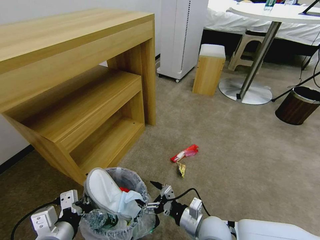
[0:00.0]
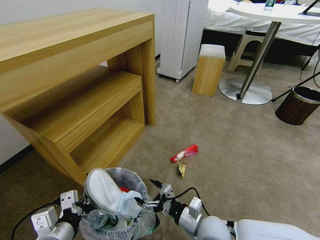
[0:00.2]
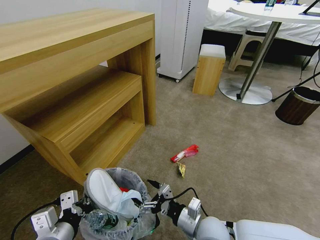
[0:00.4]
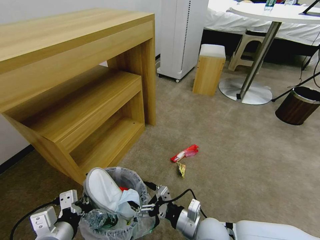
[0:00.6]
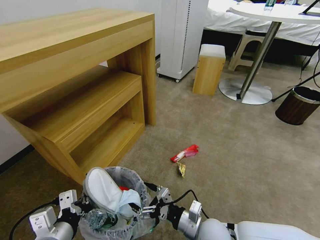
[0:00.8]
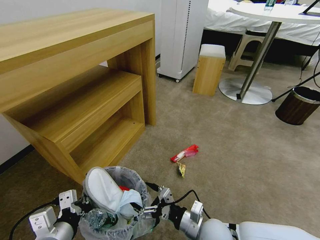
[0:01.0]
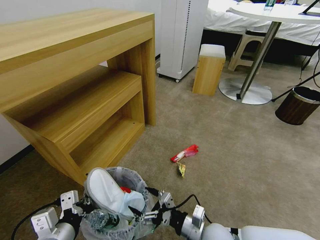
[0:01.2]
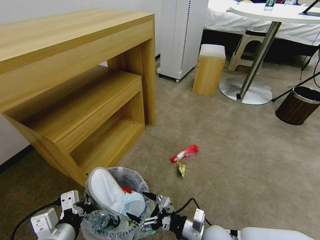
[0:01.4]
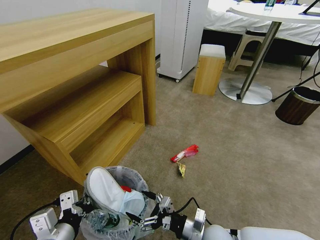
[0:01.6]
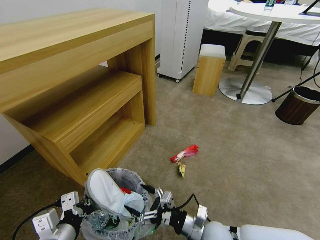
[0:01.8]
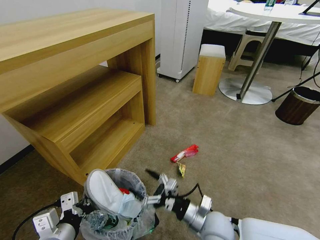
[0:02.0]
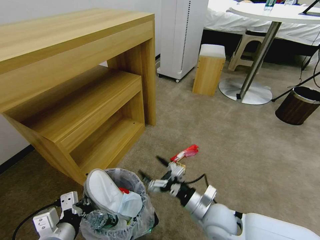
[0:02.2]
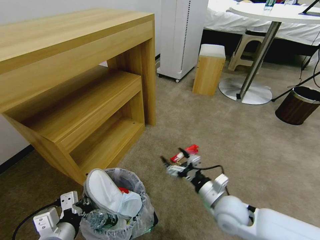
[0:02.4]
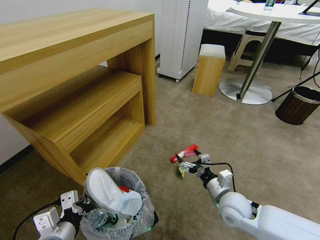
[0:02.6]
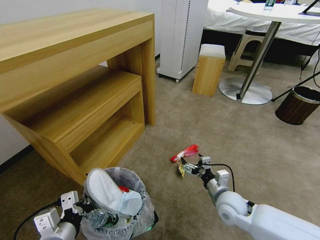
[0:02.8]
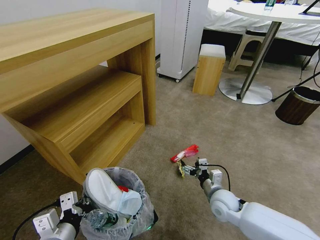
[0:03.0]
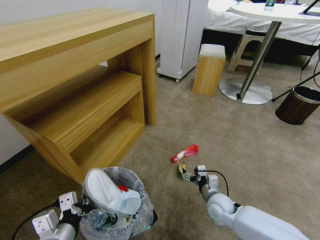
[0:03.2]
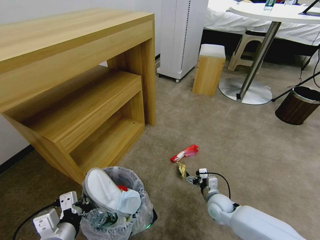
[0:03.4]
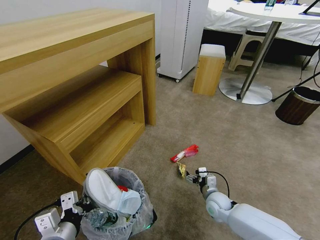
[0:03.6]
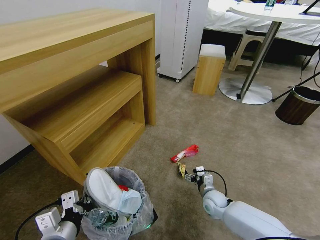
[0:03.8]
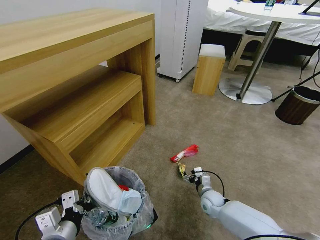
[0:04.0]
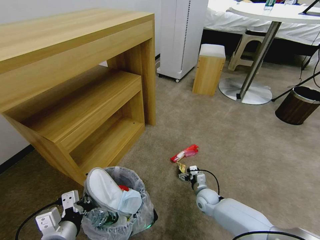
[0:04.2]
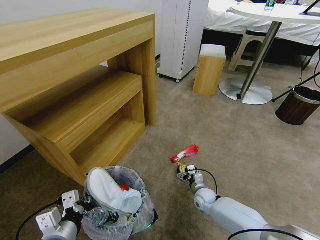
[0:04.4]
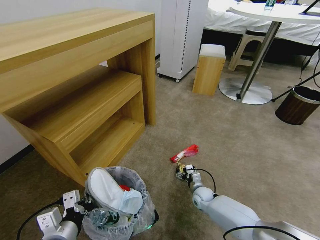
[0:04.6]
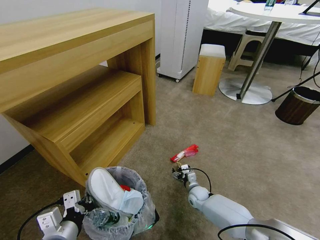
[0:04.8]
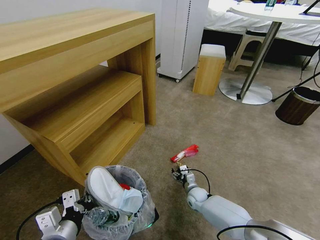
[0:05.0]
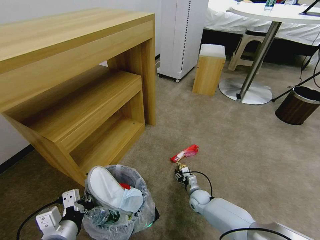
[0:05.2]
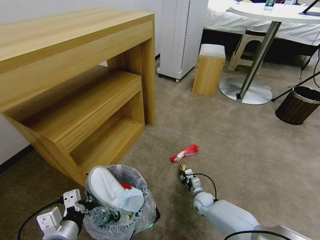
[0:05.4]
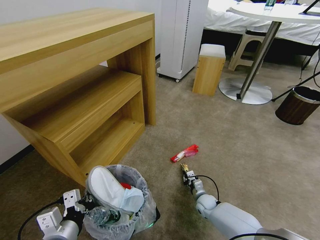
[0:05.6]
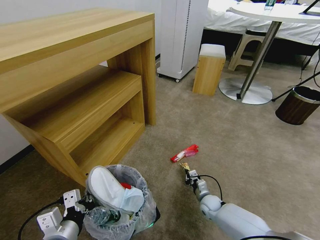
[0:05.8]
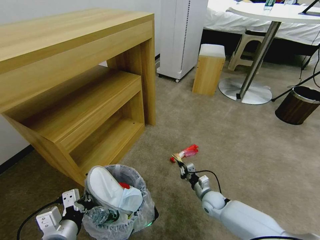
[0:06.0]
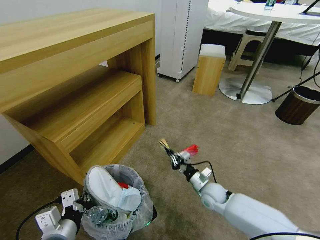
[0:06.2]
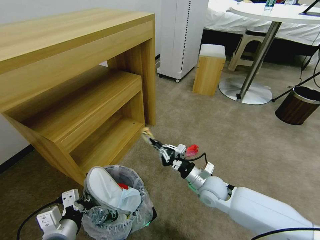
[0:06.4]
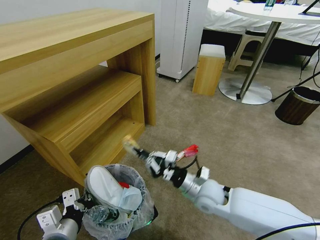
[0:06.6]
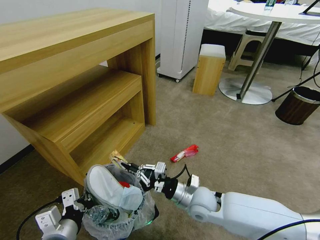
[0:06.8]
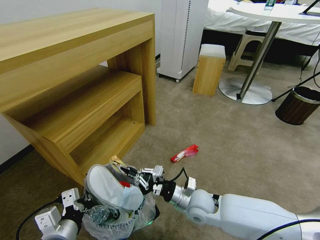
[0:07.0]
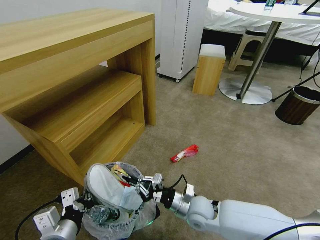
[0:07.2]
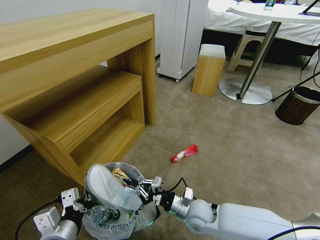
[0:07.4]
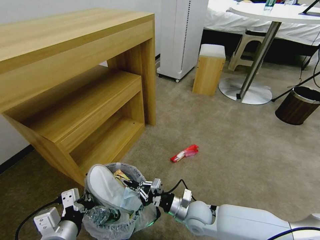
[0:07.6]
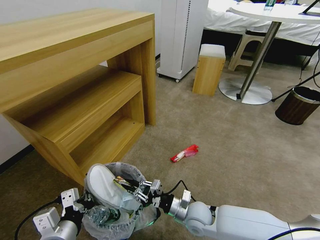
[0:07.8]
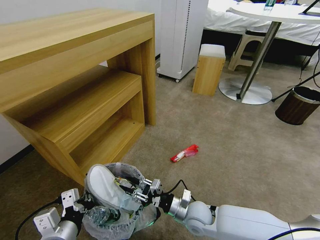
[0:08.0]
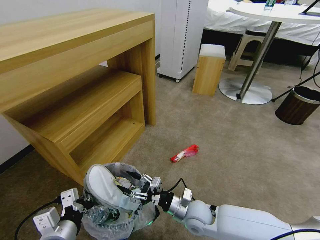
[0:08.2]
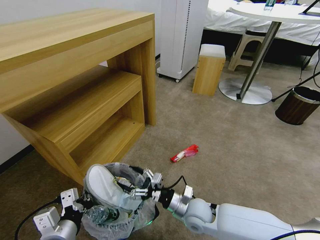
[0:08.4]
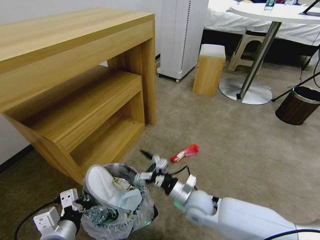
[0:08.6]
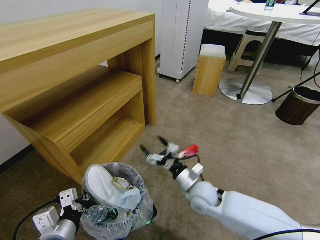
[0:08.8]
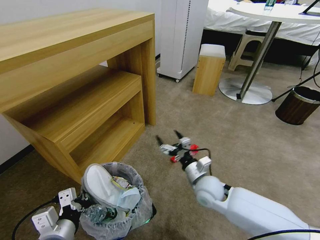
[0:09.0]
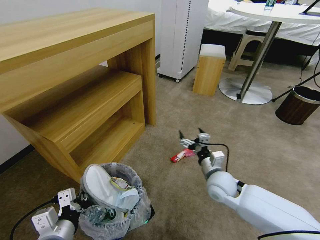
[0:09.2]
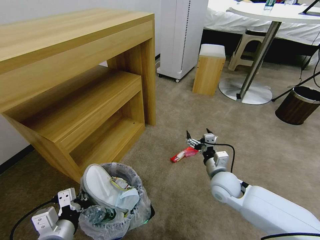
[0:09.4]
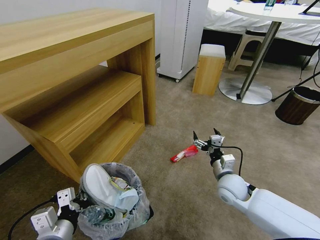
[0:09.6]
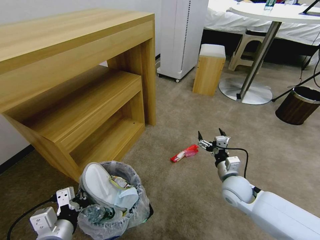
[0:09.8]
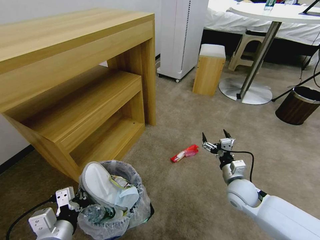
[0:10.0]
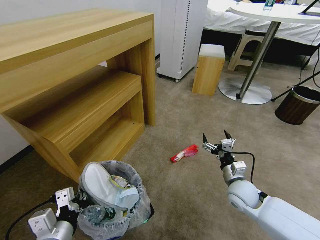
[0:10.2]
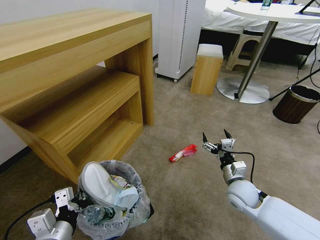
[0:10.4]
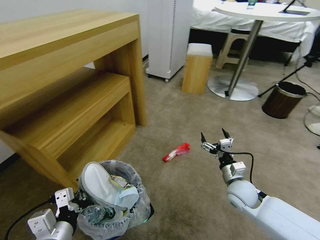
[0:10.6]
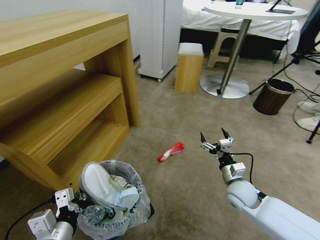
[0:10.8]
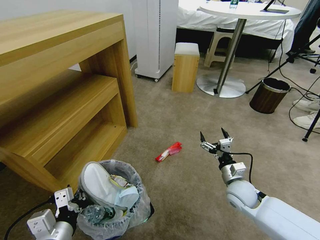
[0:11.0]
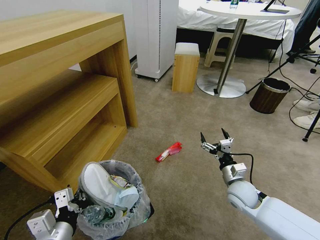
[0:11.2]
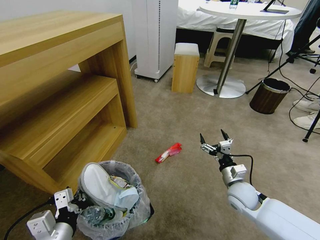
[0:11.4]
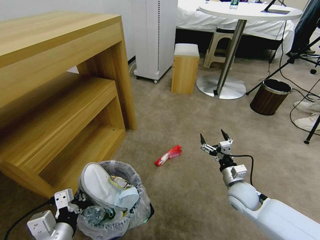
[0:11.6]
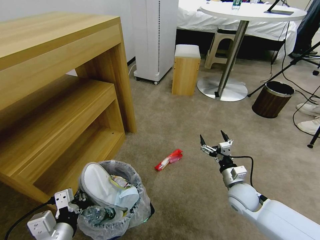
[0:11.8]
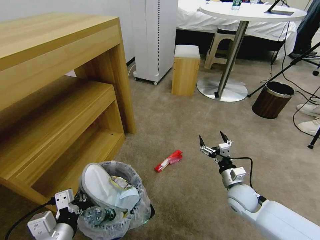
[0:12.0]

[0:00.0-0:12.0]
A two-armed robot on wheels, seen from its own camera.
Task of the whole recording: Pick up the trash bin and place the garbage on the floor into it.
0:00.0 to 0:01.6: The grippers stay close to where they were, moving slightly.
0:01.6 to 0:03.0: The right gripper goes about 15 cm forward and to the right.
0:03.0 to 0:04.4: The right gripper is displaced downward and forward by roughly 15 cm.
0:04.4 to 0:06.0: The right gripper closes.
0:06.0 to 0:07.6: The right gripper travels to the left, upward and backward by approximately 15 cm.
0:07.6 to 0:09.0: The right gripper heads upward and forward, covering approximately 10 cm, and opens its fingers.
0:09.0 to 0:10.4: The right gripper is displaced to the right by about 10 cm.

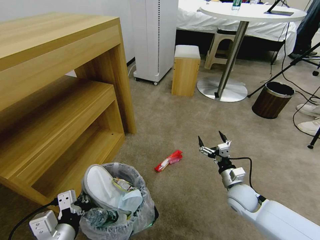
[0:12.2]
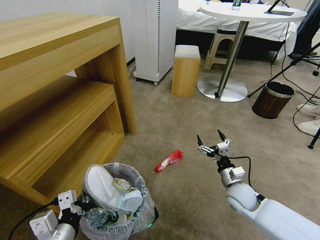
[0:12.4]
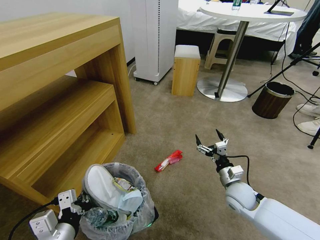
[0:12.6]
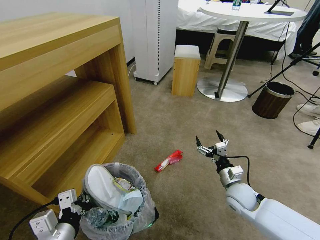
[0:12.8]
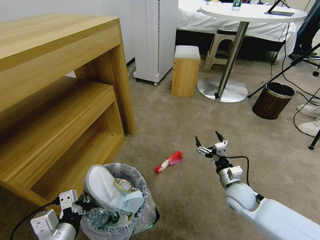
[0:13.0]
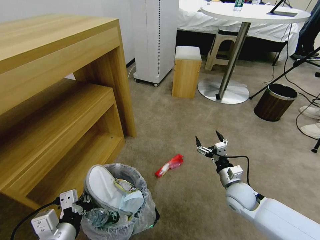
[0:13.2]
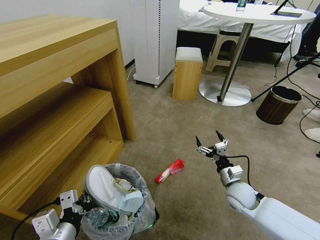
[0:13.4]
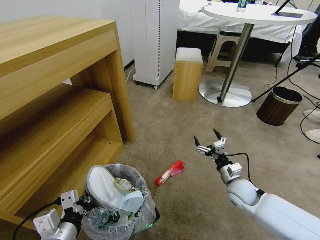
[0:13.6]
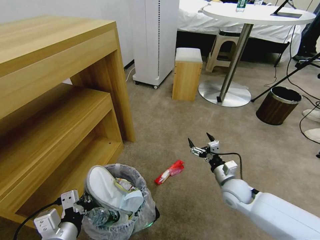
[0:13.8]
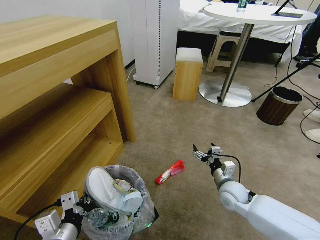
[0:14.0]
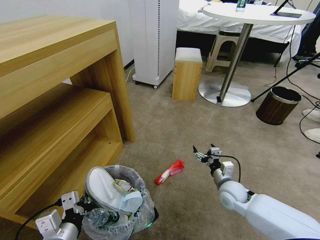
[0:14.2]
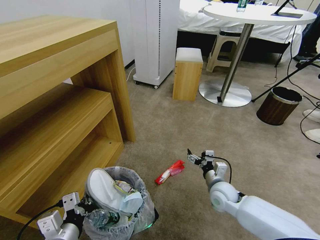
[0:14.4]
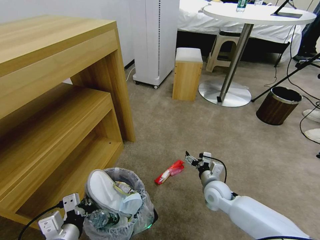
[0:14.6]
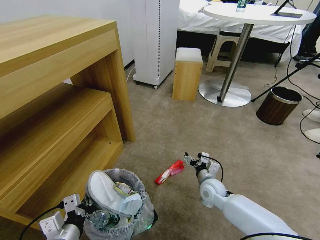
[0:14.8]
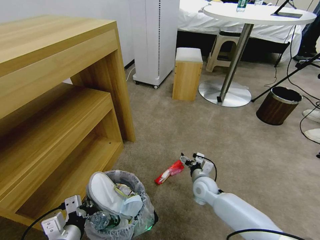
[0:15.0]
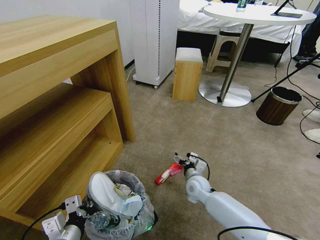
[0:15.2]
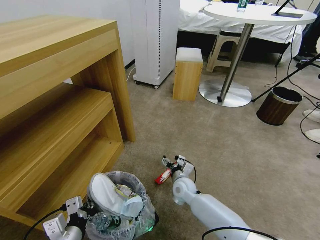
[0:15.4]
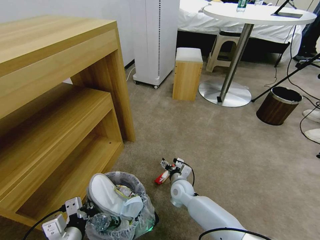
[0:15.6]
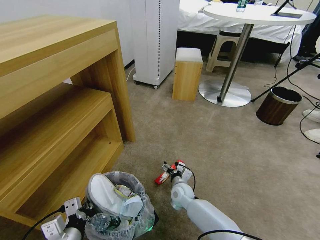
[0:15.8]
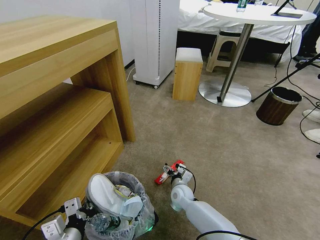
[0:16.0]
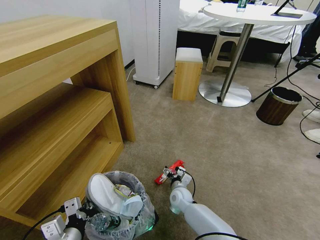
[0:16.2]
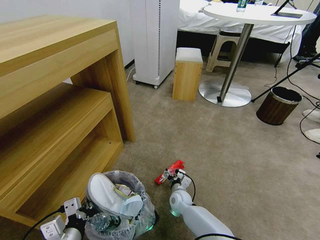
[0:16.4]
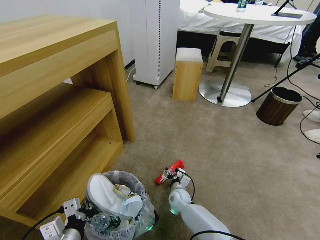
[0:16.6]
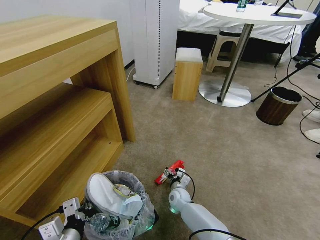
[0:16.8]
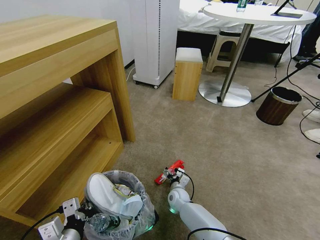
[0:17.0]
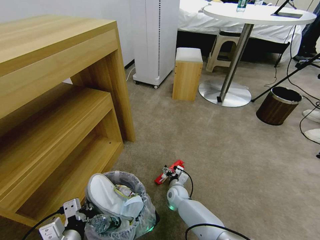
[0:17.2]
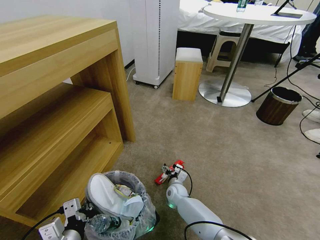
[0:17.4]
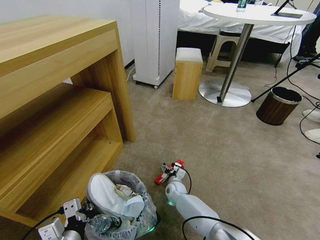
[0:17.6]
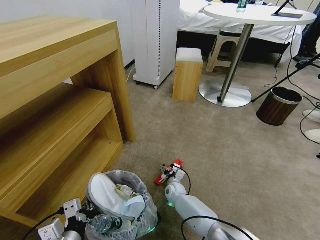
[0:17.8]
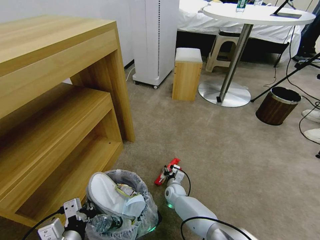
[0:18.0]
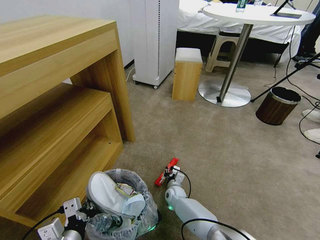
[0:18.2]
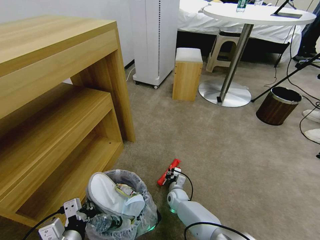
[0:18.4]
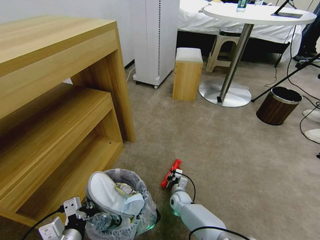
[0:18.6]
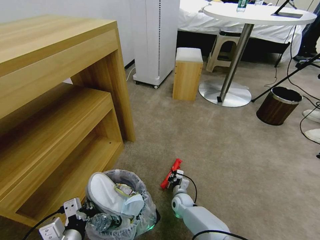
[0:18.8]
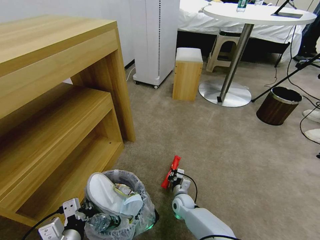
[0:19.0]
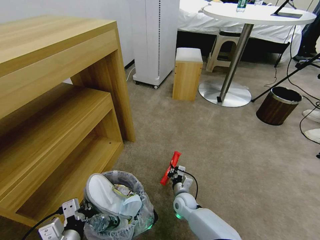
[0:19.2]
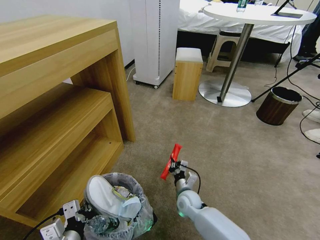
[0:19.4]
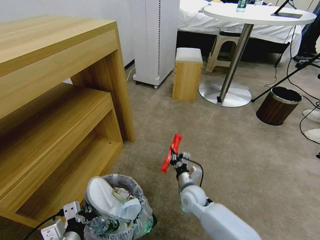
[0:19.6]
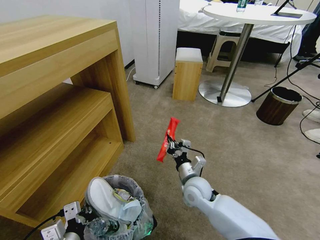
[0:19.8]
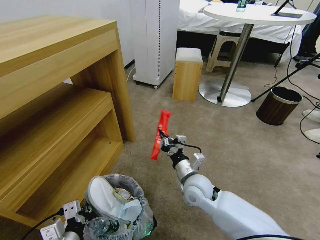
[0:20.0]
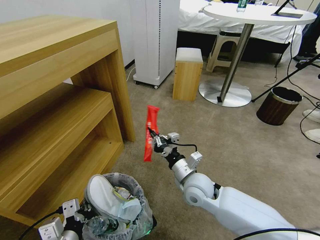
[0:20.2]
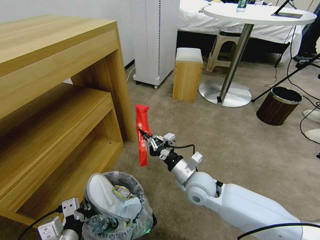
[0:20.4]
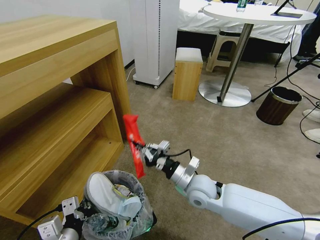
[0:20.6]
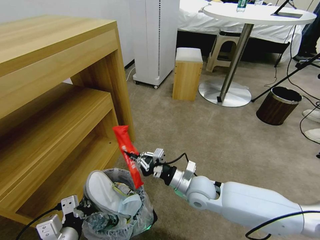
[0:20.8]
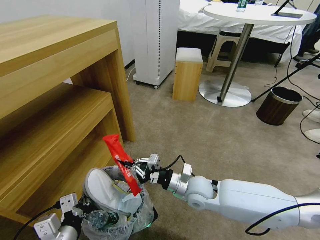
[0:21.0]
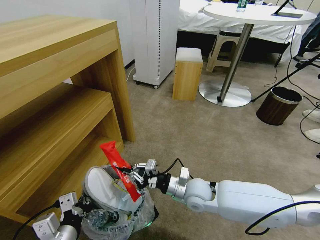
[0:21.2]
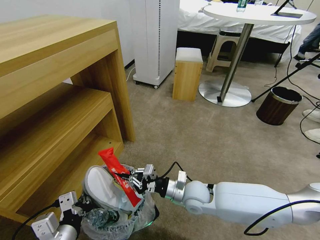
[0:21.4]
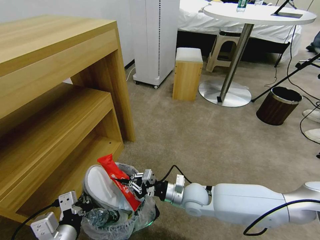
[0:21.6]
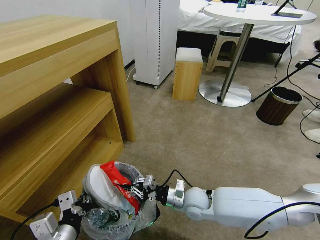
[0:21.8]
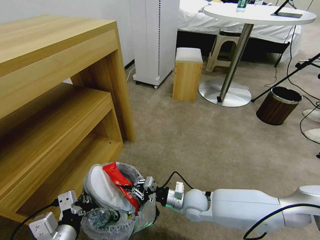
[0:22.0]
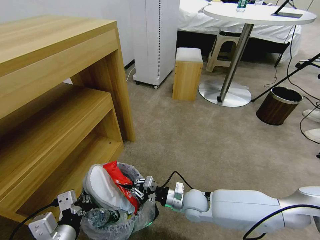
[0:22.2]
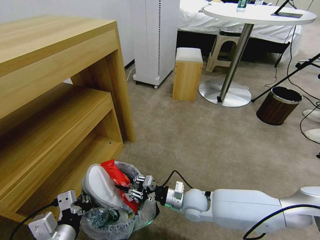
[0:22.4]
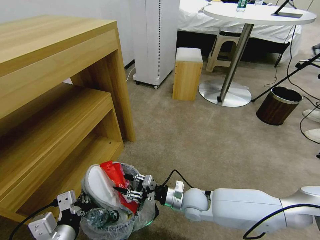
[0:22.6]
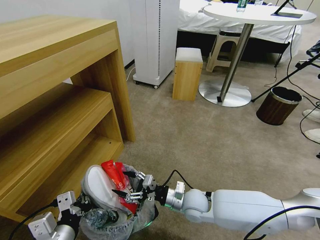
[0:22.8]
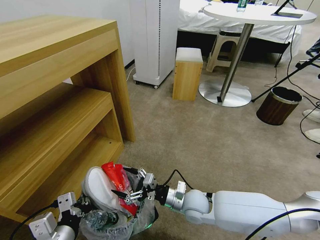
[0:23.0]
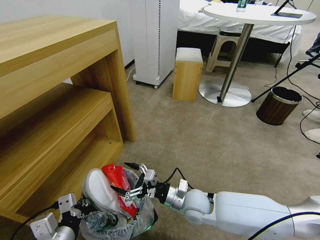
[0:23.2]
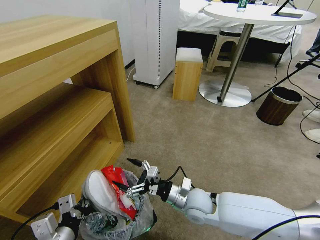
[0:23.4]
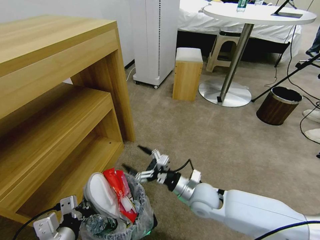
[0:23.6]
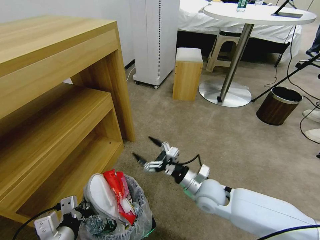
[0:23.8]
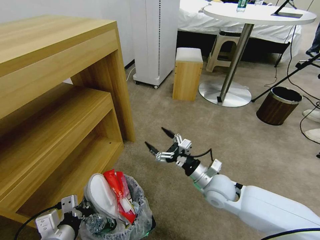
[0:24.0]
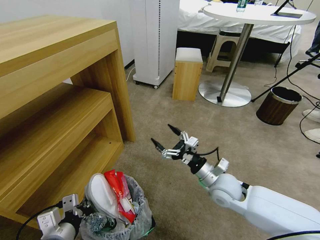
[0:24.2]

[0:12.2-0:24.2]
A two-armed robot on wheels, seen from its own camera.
Task of the whole recording: Pick up the trash bin and place the garbage on the floor into it.
0:13.8 to 0:15.2: The right gripper shifts about 15 cm to the left and downward.
0:15.2 to 0:16.6: The right gripper heads downward and to the left, covering roughly 10 cm.
0:16.6 to 0:18.2: The right gripper moves about 5 cm, and closes up.
0:18.2 to 0:19.8: The right gripper heads upward, covering about 20 cm, and closes its fingers.
0:21.2 to 0:22.6: The right gripper is displaced downward by approximately 5 cm, and opens up.
0:22.6 to 0:24.2: The right gripper is displaced to the right and upward by roughly 10 cm, and opens.
